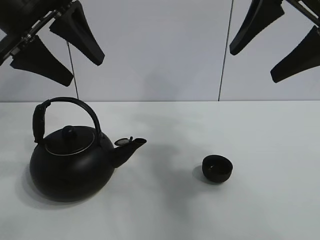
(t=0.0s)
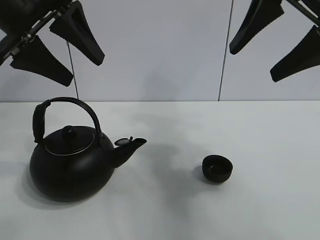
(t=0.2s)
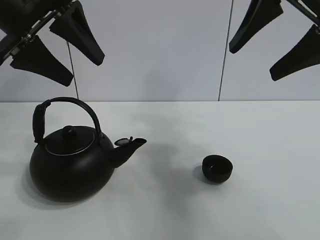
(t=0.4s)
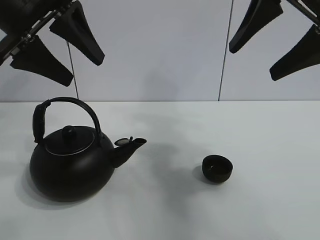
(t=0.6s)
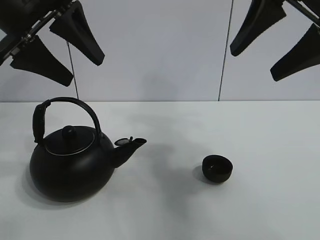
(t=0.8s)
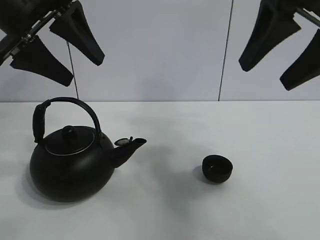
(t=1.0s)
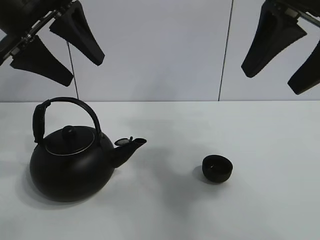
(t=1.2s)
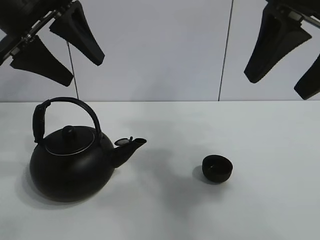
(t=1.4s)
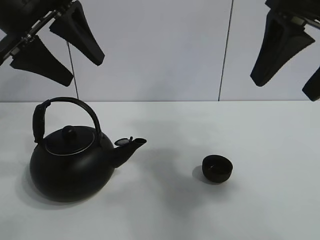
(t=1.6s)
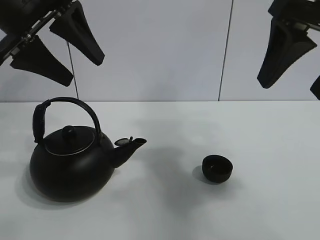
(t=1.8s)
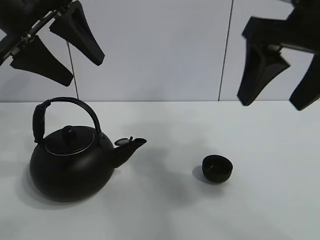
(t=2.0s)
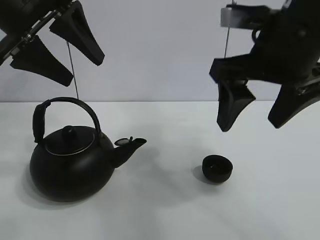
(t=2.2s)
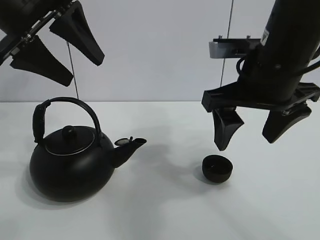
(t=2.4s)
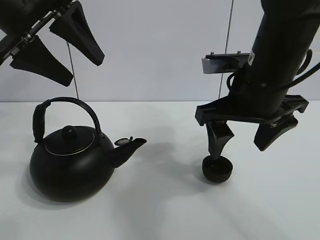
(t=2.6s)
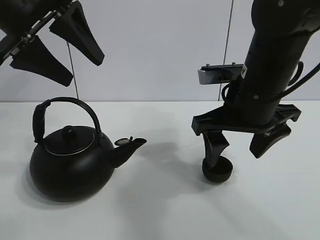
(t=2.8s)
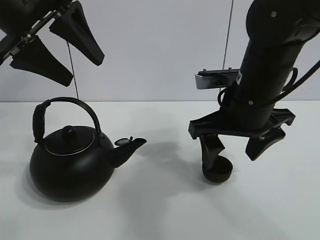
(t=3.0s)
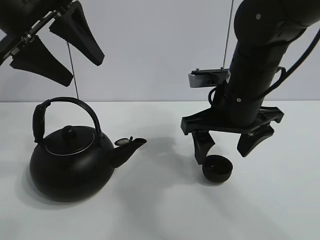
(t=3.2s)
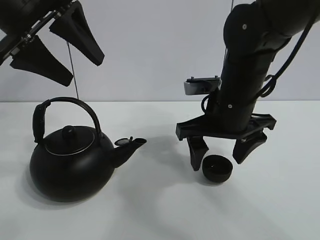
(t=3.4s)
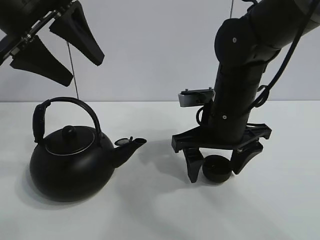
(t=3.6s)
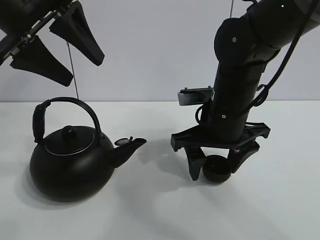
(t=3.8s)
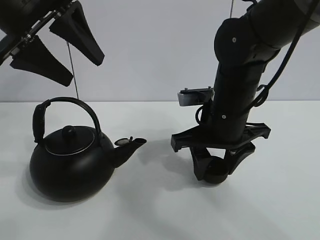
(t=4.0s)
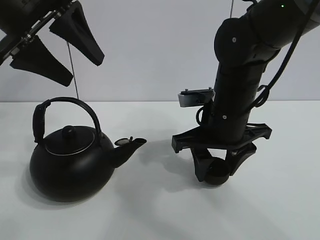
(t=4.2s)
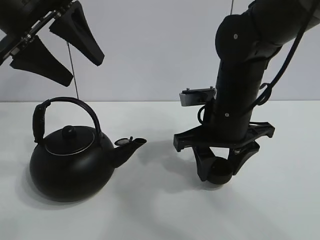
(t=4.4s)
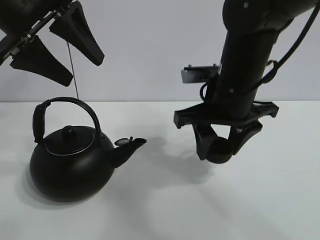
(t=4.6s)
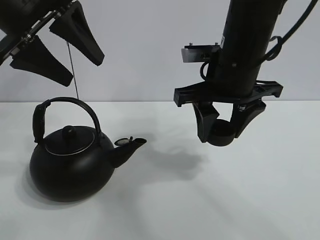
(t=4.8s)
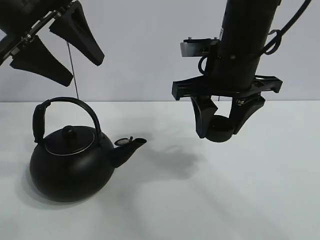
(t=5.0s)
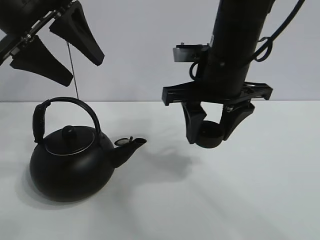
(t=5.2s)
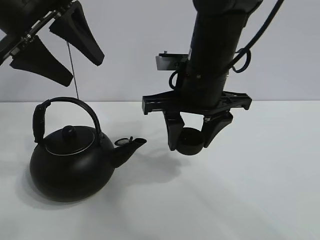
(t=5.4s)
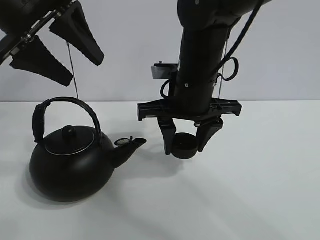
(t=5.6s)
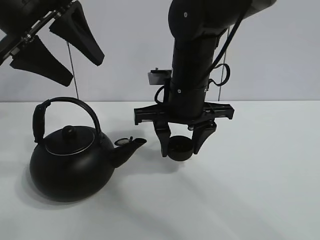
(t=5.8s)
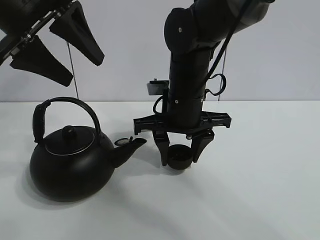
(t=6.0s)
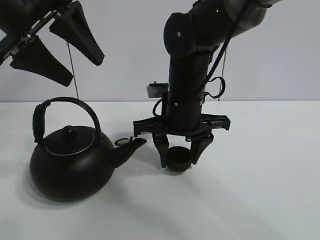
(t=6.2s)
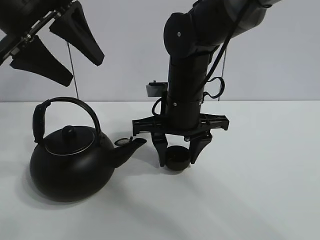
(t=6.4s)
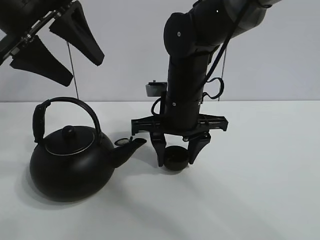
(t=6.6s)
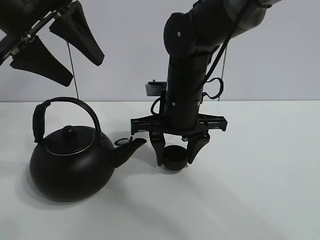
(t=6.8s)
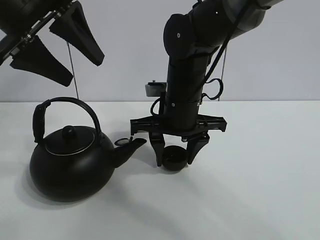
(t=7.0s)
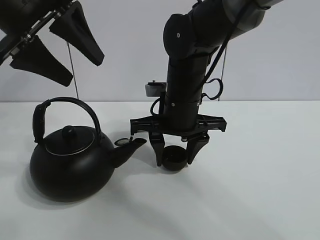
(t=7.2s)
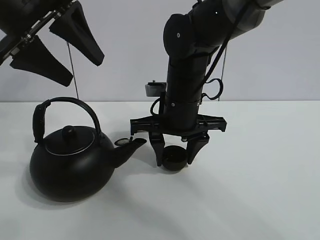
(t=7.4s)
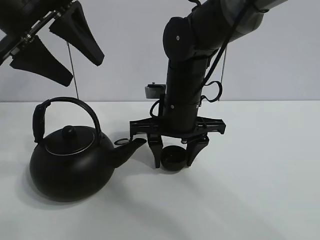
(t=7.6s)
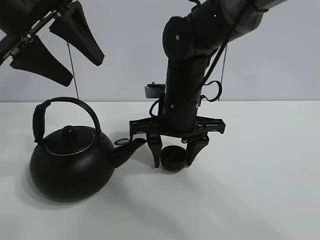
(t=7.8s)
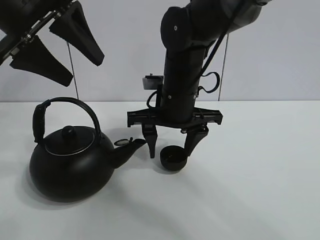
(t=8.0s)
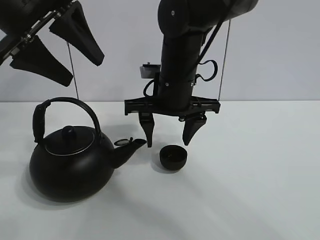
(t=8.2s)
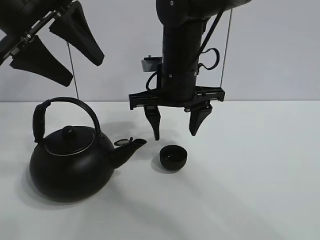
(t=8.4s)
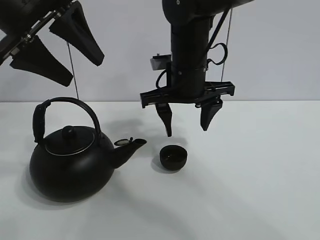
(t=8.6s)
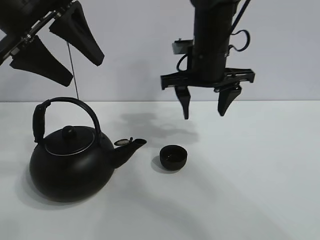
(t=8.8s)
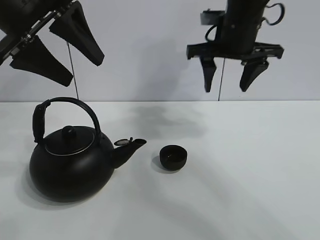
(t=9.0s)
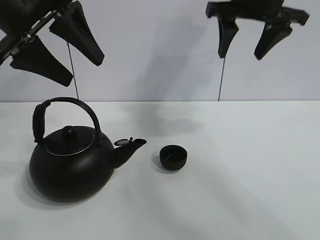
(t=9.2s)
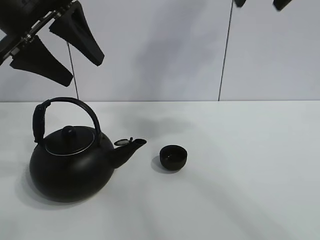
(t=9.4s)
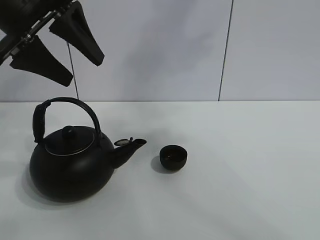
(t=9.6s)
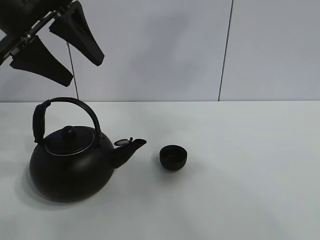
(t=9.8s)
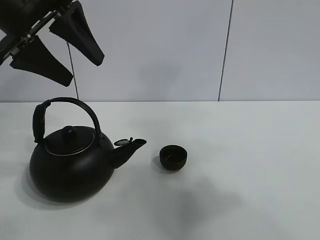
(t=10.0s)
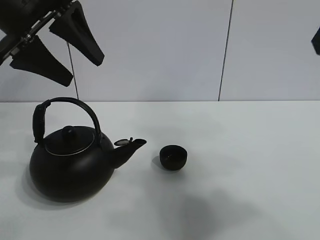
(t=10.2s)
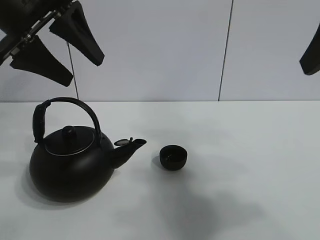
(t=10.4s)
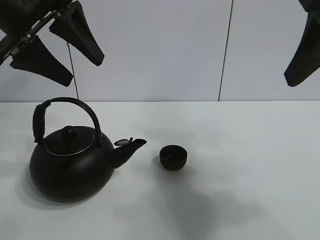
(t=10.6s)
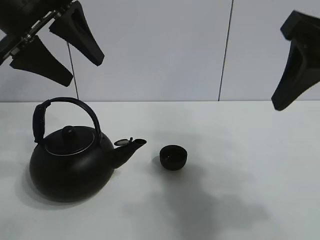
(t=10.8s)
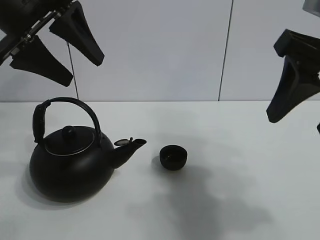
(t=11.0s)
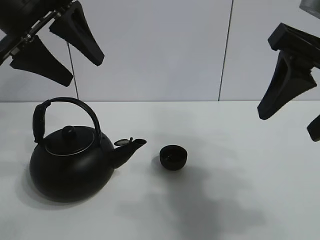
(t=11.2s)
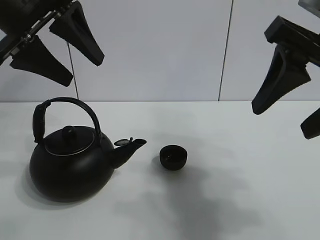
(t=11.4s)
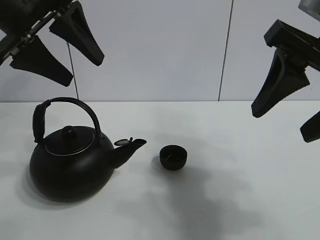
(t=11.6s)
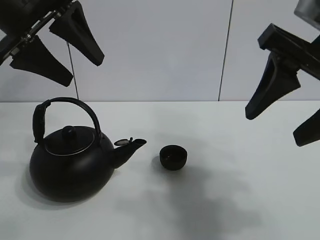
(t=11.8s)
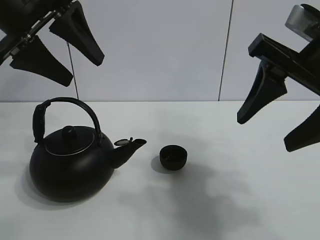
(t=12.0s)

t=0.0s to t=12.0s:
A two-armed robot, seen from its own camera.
Task of the whole recording: pour tea into the teacup.
Step, t=0.0s to t=4.4s: Pick up the teacup with the right gripper.
Step, t=4.6s to t=8.0s: Place the teacup in the center of view with the right gripper.
t=1.6s to t=3.0s: The right gripper is displaced downward, to the left and forward by roughly 15 cm.
t=3.0s to t=4.4s: The right gripper closes up.
t=4.4s to t=6.0s: The right gripper moves to the left, roughly 5 cm, and reaches approximately 10 cm upward, then returns.
t=6.0s to t=7.6s: The two grippers keep their place.
t=7.6s to t=9.0s: The right gripper travels upward, to the right and forward by about 15 cm, and opens.
t=9.0s to t=10.4s: The right gripper is displaced backward by approximately 25 cm.
t=10.4s to t=12.0s: The right gripper travels downward by about 10 cm.

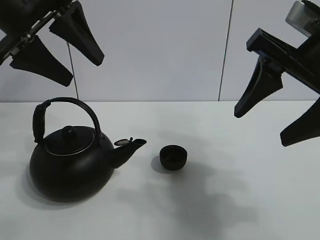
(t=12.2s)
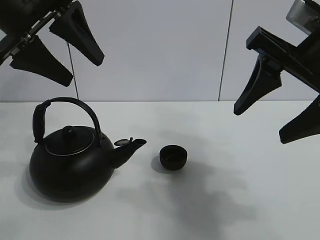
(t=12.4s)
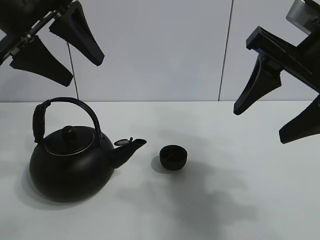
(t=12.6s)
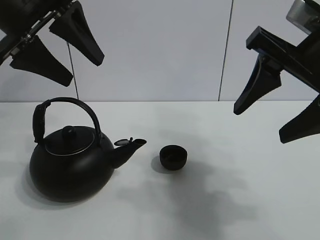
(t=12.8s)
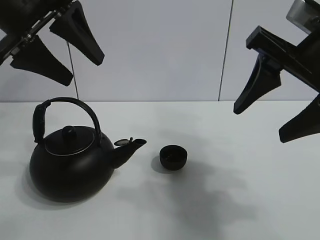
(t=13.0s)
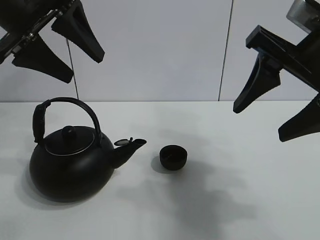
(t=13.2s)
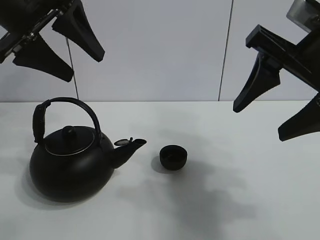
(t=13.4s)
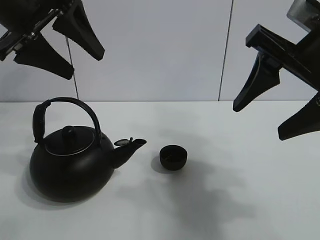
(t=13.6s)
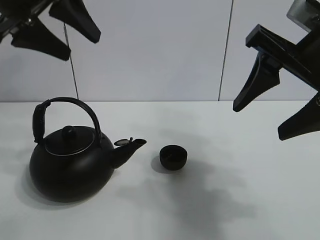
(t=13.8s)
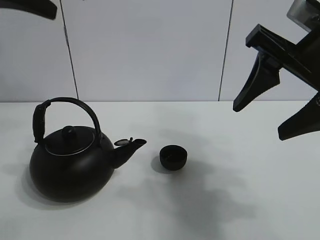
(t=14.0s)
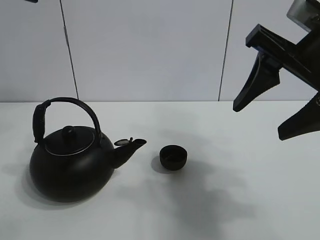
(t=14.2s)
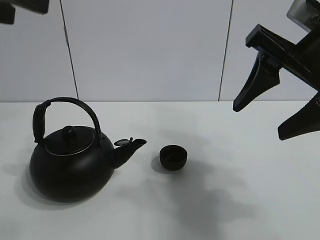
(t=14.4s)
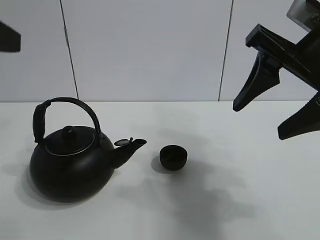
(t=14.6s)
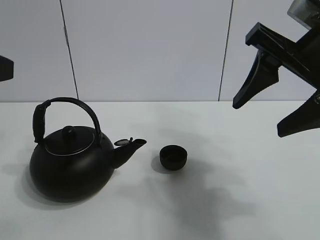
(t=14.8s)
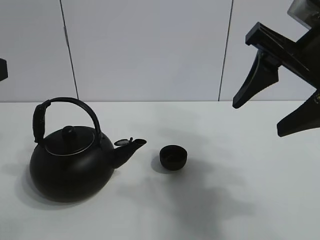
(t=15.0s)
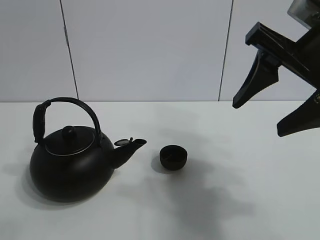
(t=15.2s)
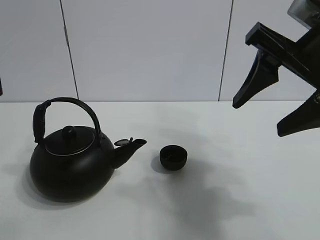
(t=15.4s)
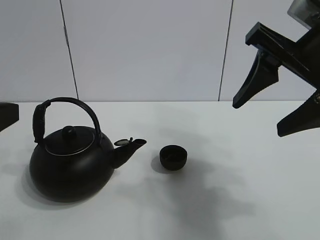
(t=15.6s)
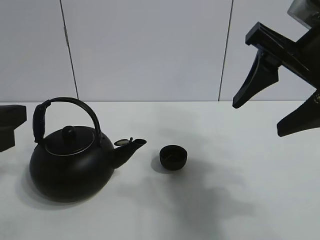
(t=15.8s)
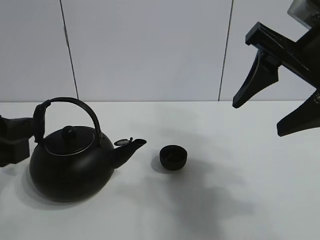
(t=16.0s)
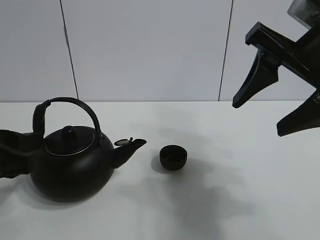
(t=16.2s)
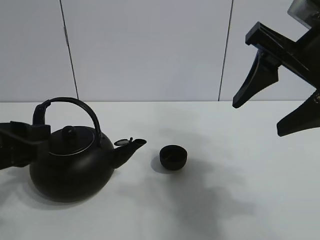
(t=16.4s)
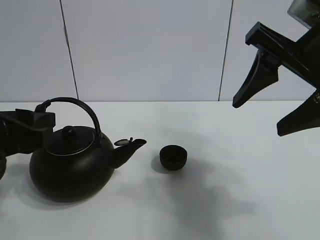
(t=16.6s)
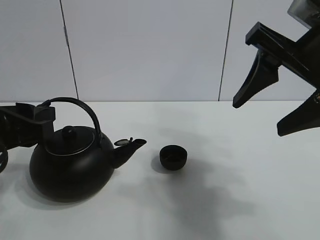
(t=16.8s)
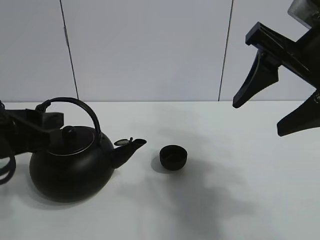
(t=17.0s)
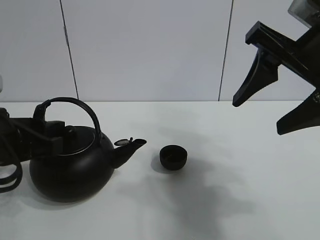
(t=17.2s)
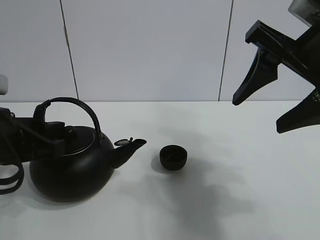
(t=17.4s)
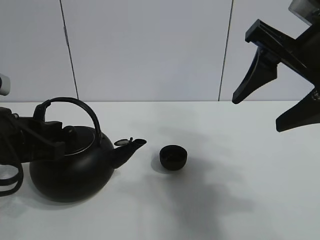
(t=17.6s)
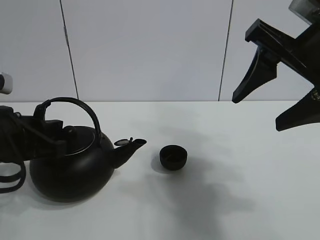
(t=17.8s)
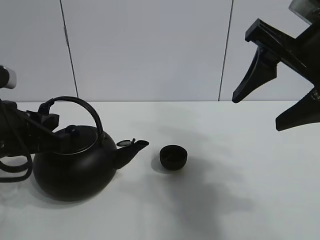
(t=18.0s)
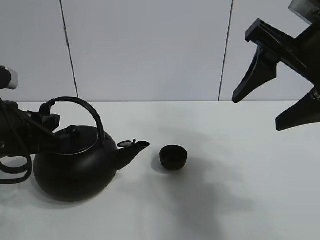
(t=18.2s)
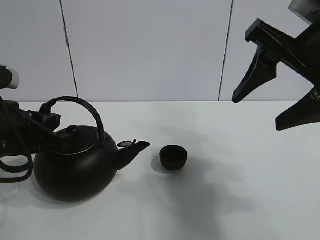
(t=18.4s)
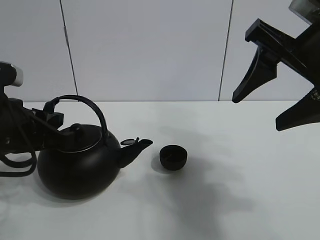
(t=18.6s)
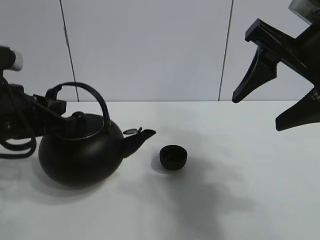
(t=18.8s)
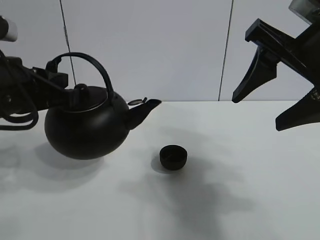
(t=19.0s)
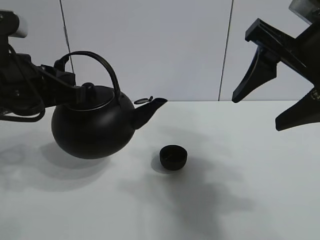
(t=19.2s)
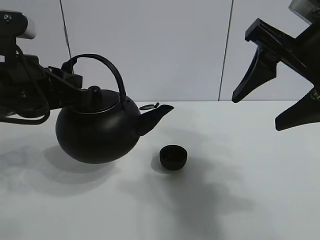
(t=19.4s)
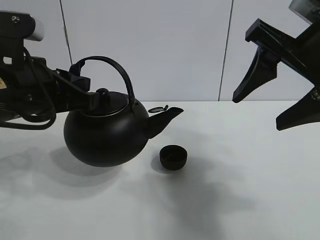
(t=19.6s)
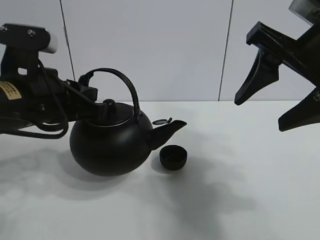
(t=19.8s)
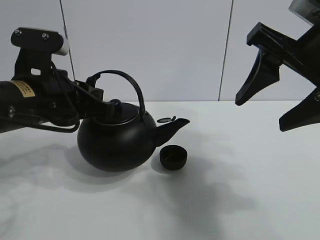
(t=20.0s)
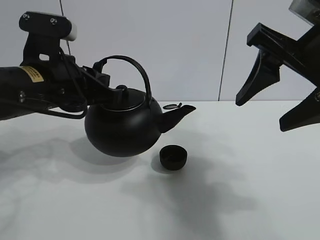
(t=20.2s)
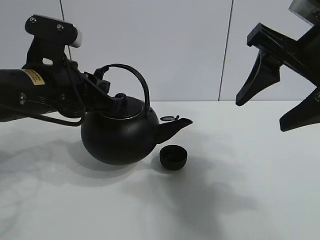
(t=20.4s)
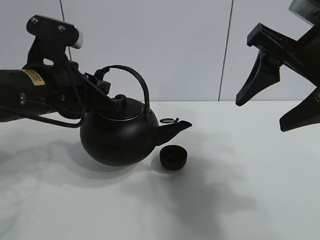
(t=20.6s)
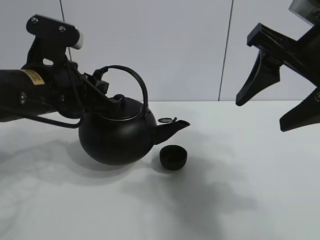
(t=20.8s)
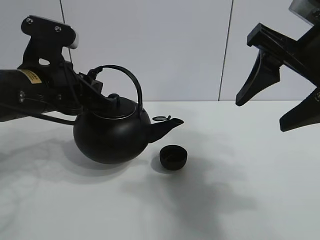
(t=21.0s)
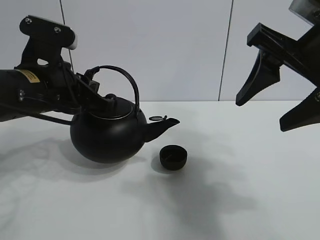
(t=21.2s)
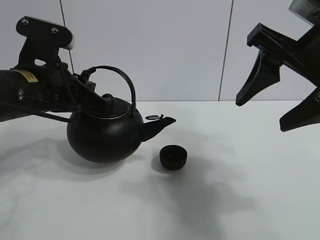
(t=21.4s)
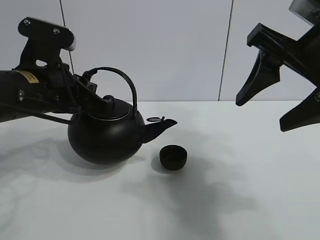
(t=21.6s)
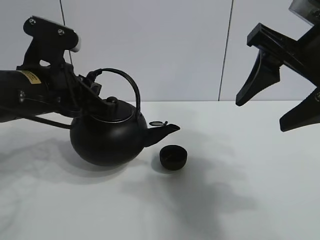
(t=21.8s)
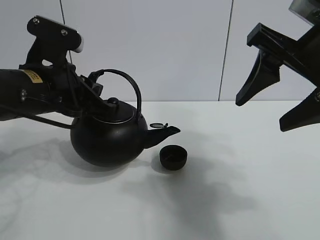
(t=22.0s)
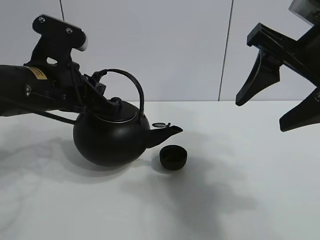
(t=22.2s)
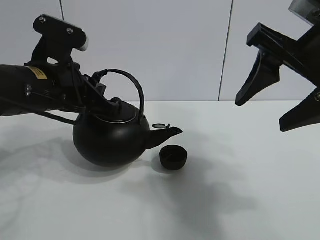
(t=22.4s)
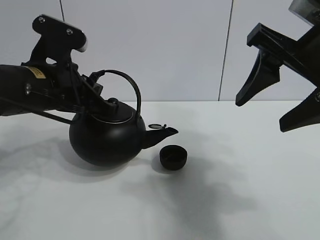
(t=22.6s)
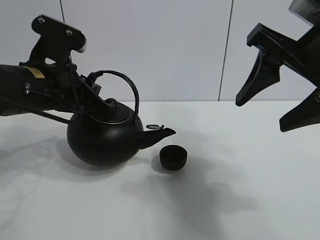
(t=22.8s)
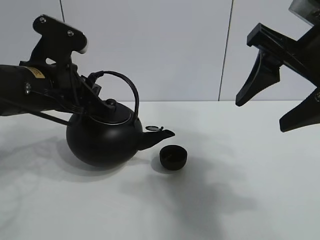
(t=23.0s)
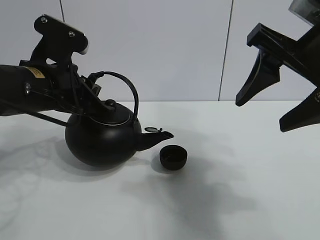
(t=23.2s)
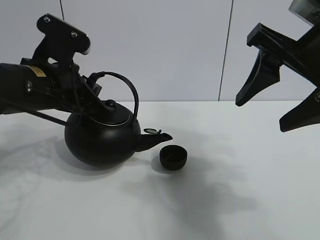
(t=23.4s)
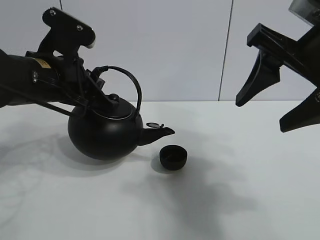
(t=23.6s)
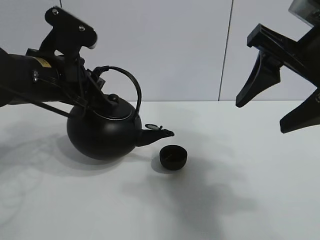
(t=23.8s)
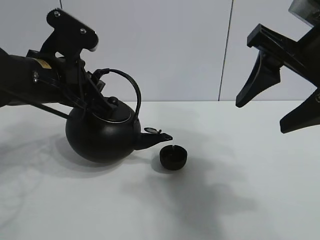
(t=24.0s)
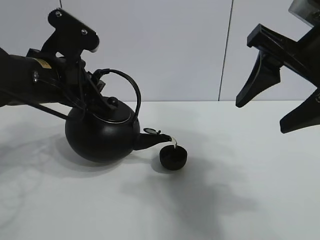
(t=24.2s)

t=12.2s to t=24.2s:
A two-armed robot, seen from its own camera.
Task of the whole recording: pour tea into the teacup.
Step, t=12.2s to t=18.8s: Pick up the teapot with the left gripper.
t=12.2s to t=13.8s: The grippers stay close to where they were, moving slightly.
t=13.8s to t=15.2s: The left gripper is displaced backward and downward by about 20 cm.
t=15.2s to t=16.6s: The left gripper heads downward and forward, covering approximately 10 cm.
t=16.6s to t=18.2s: The left gripper closes.
t=18.2s to t=19.8s: The left gripper changes place by some 5 cm.
t=19.8s to t=22.6s: There are only small adjustments of the grippers.
t=22.6s to t=24.2s: The grippers make only small movements.
